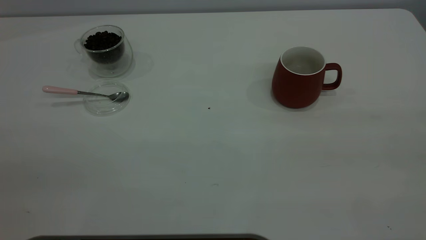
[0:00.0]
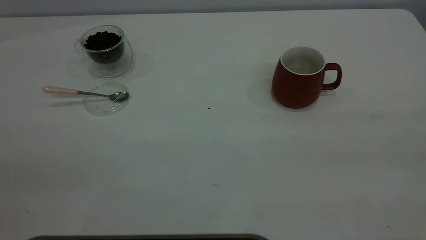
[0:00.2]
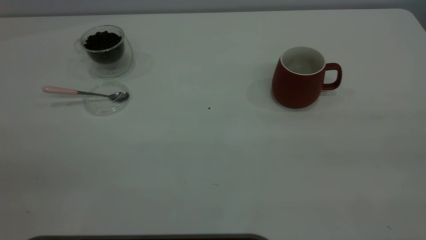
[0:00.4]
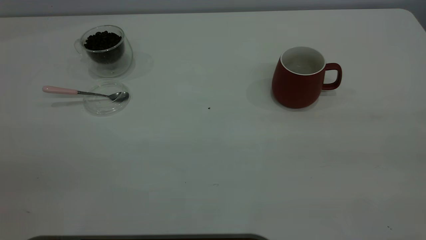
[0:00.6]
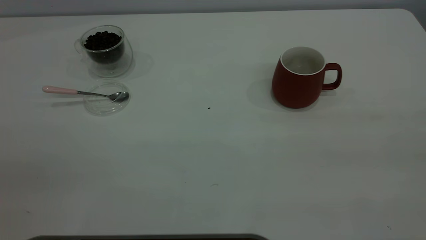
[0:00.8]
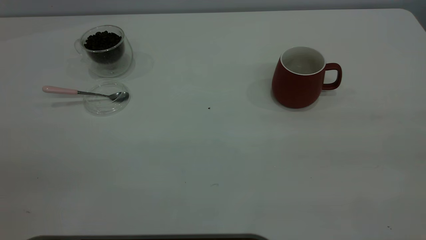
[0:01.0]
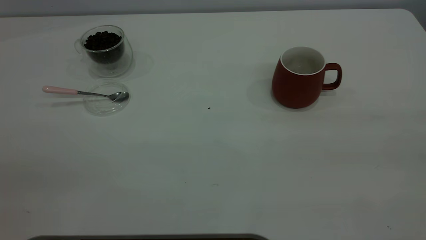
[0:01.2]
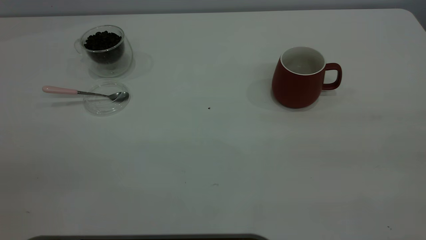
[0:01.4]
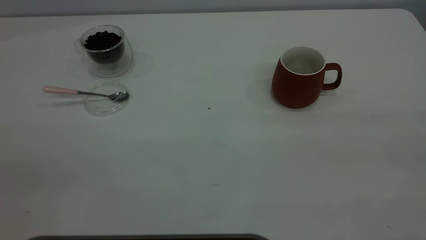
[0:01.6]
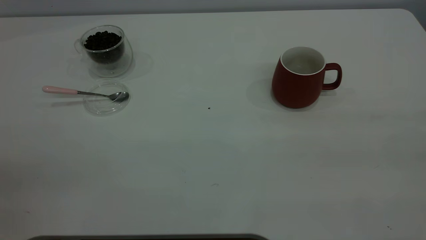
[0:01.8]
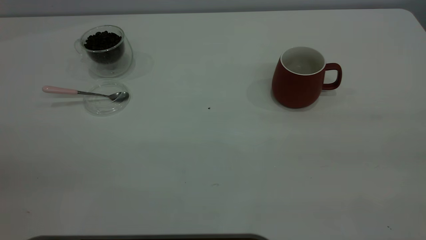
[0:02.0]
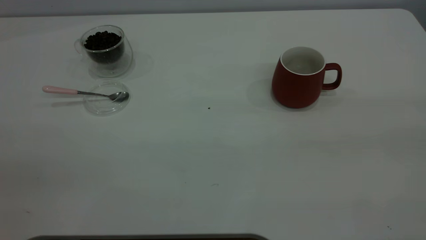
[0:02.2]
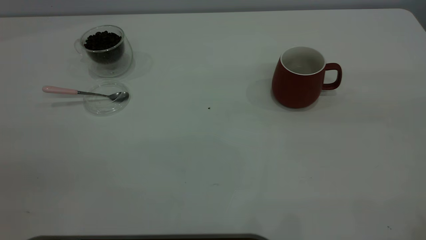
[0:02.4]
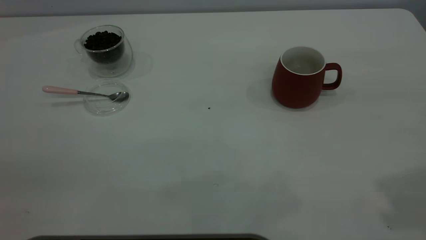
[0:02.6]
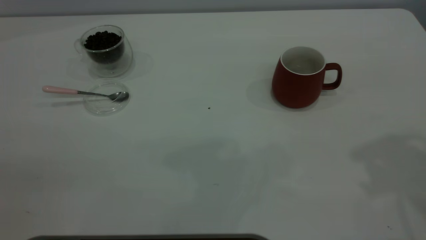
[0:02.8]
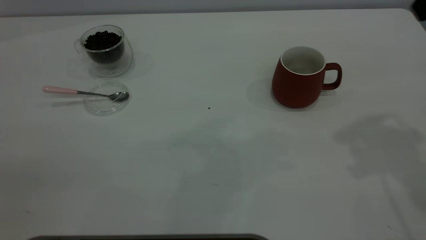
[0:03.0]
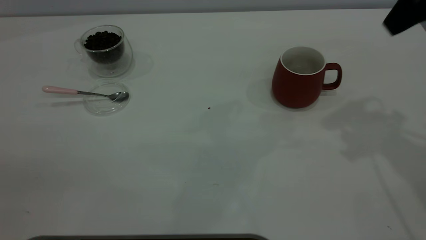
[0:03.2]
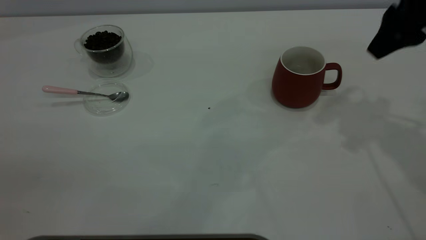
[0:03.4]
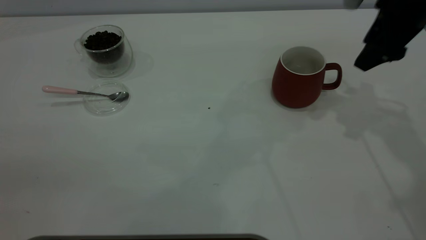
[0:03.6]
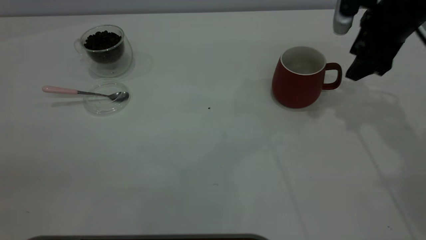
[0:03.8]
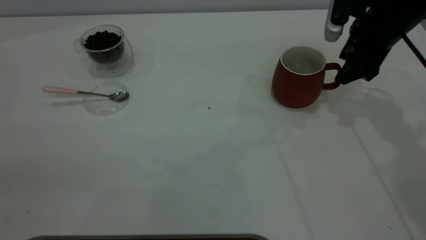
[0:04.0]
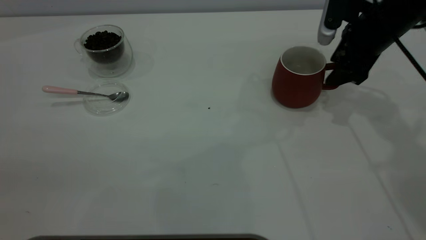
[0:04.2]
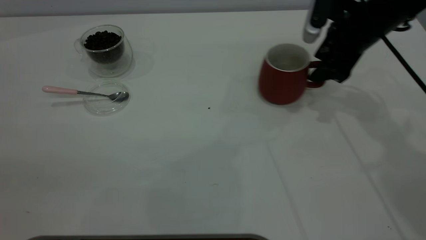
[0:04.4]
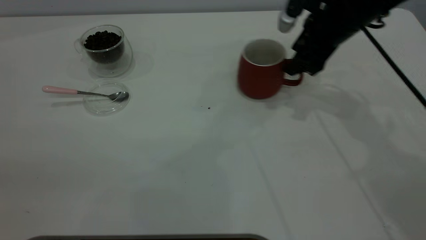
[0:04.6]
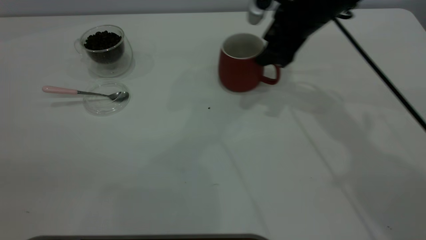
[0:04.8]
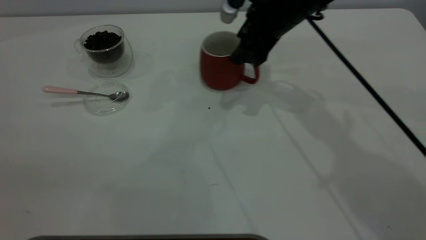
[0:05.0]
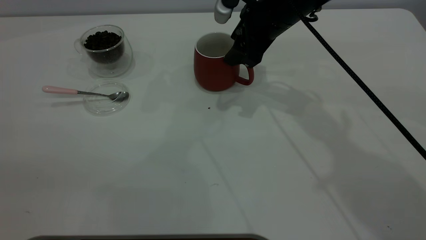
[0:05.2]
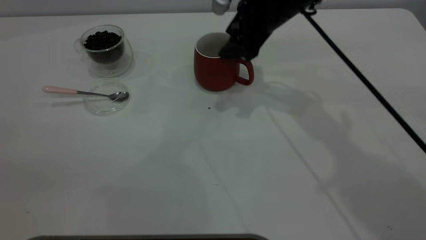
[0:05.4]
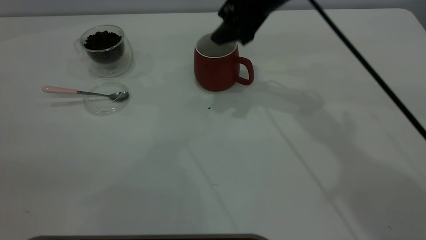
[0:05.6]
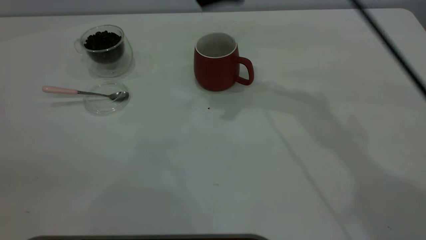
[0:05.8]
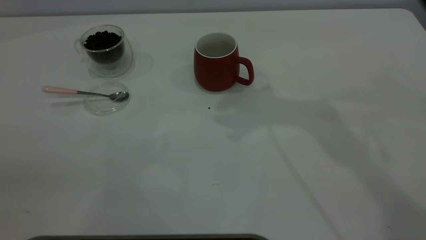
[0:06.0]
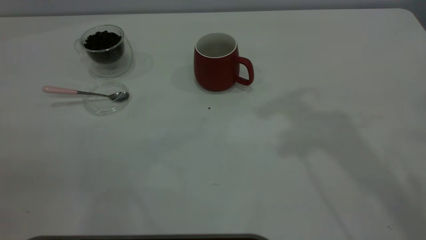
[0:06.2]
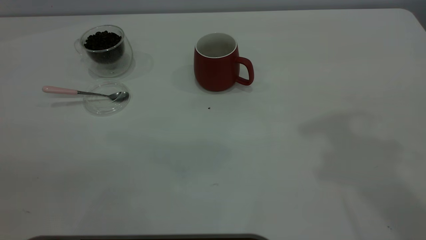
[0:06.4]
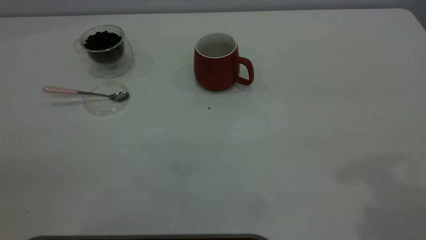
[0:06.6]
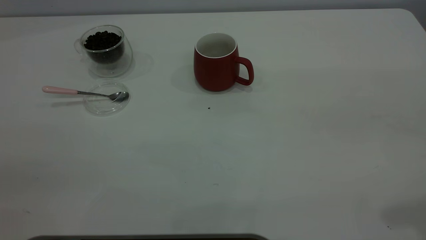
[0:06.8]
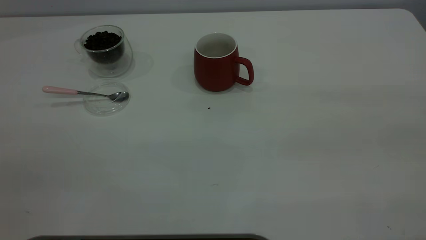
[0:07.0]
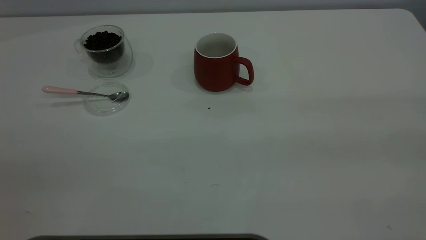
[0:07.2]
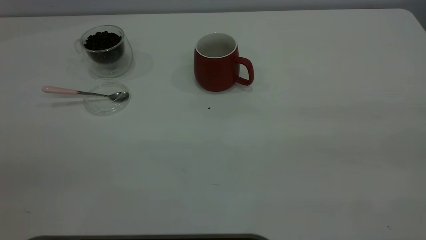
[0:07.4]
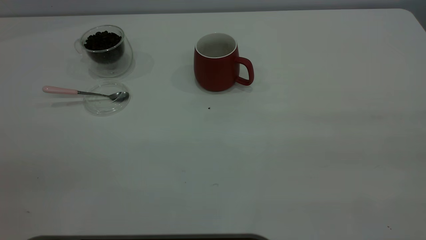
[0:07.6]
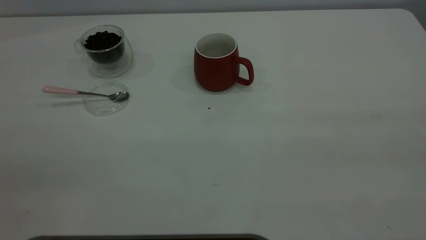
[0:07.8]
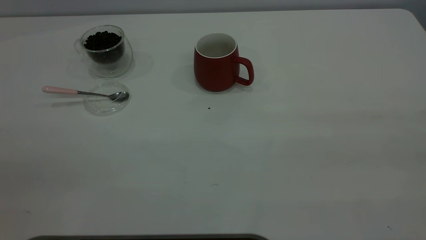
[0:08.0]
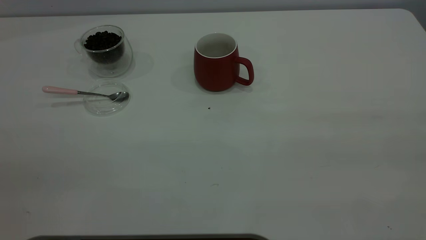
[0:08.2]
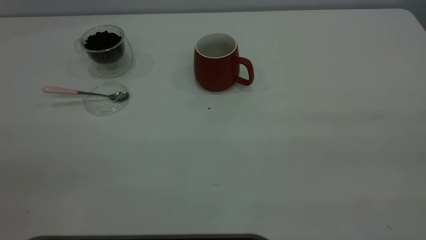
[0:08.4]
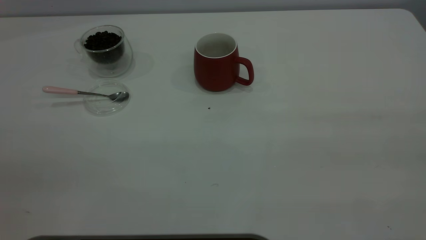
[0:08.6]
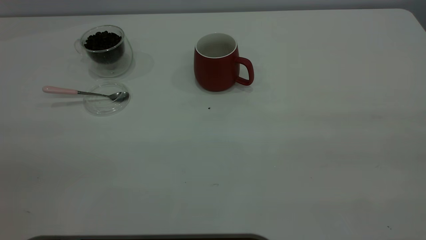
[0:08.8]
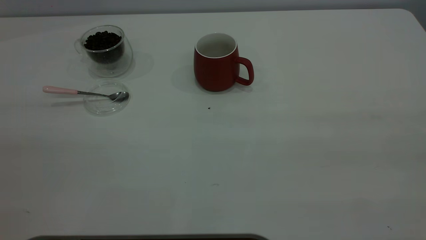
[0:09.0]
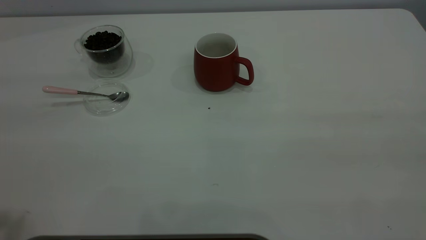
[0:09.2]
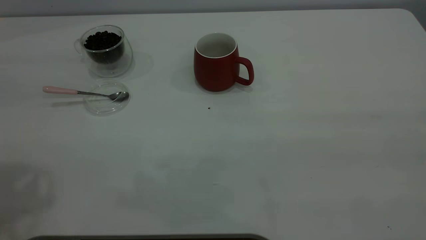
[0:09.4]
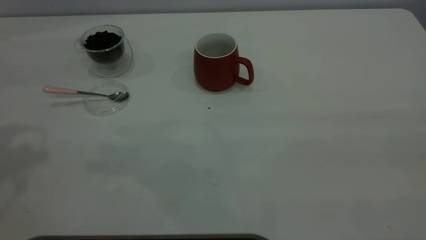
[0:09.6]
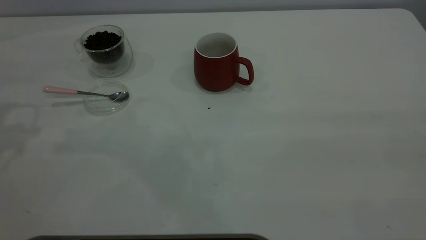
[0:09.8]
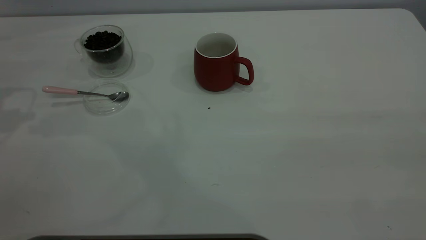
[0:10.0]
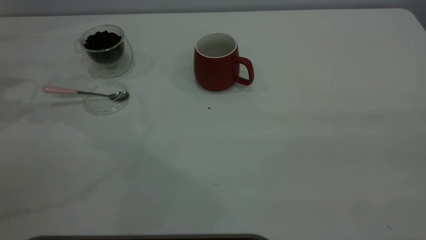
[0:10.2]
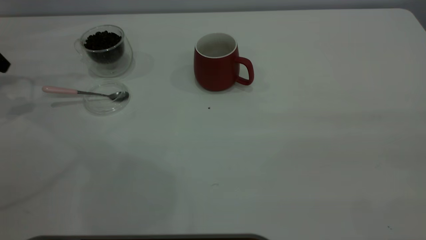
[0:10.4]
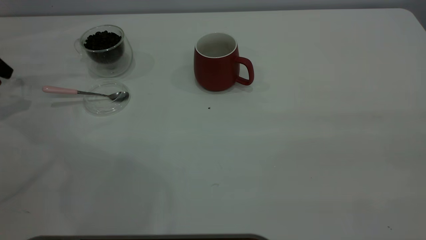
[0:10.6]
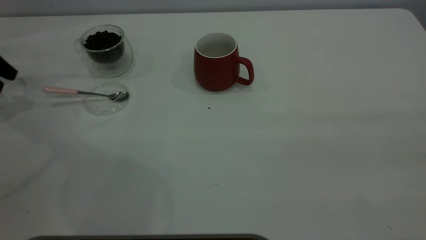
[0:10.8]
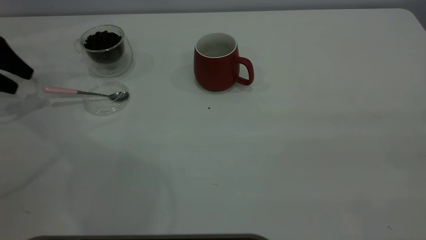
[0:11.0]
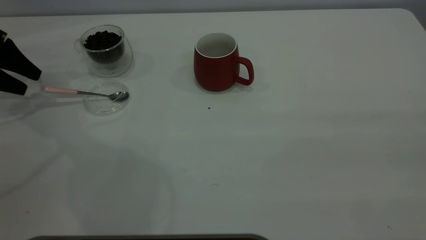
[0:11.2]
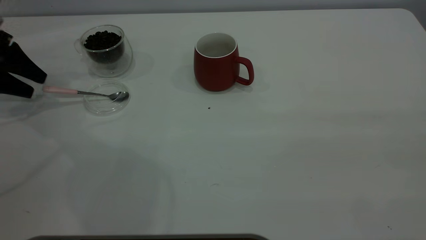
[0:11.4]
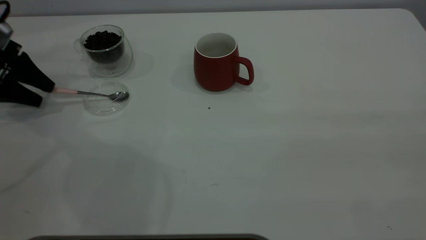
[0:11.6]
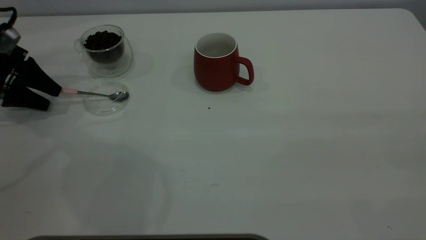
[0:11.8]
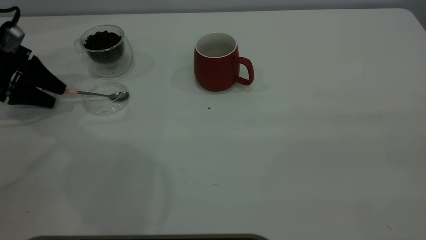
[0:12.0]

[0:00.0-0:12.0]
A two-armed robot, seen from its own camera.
Task of the whole recording: the right gripper place the red cup in the center of the table, the left gripper take the pink spoon from the cup lid and scoop out the coffee beans from the coffee cup and put them into the red cup, the left gripper put the spoon back into the cup lid.
Step, 0:00.0 to 0:05.6: Move the cup to the center of view.
0:00.0 to 0:01.6: Both grippers stay about where they are.
0:03.0 to 0:04.4: The right gripper is displaced downward and forward by roughly 25 cm.
0:04.4 to 0:06.0: The right gripper moves upward and to the left, approximately 25 cm.
0:10.4 to 0:12.0: The left gripper moves downward, approximately 10 cm.

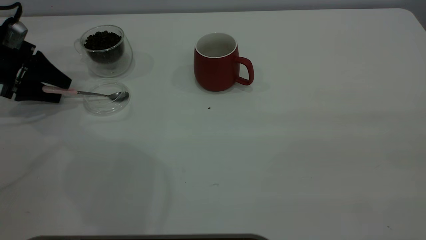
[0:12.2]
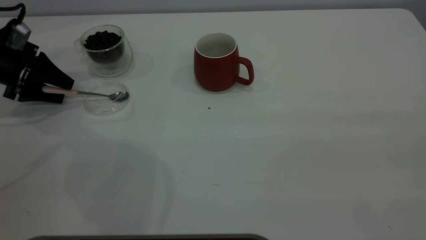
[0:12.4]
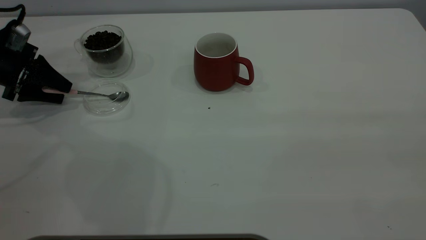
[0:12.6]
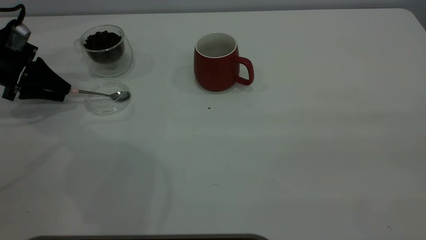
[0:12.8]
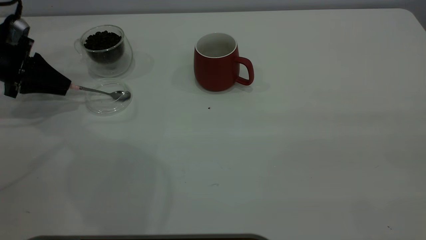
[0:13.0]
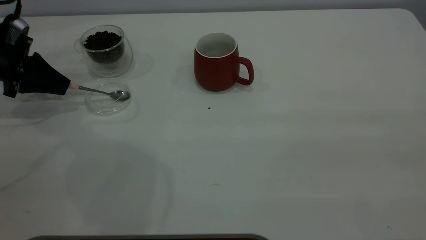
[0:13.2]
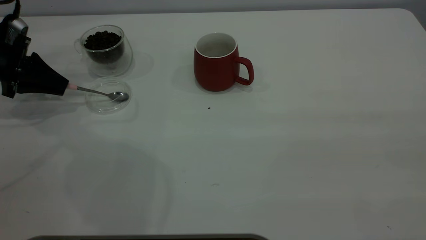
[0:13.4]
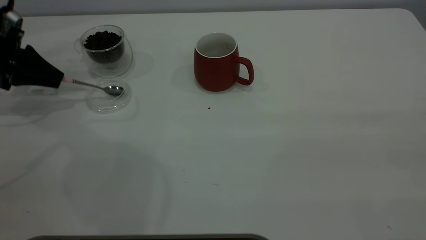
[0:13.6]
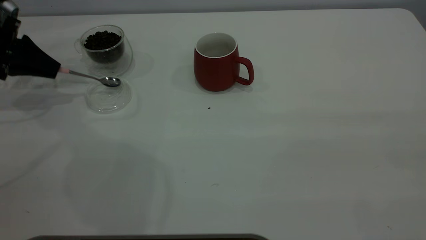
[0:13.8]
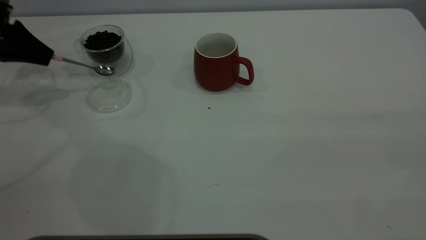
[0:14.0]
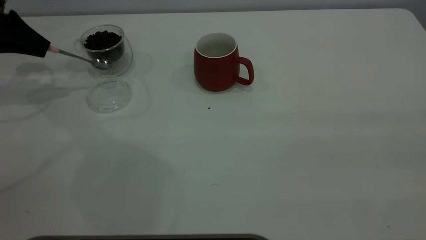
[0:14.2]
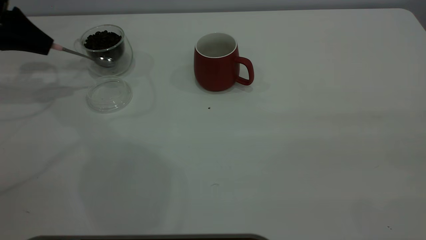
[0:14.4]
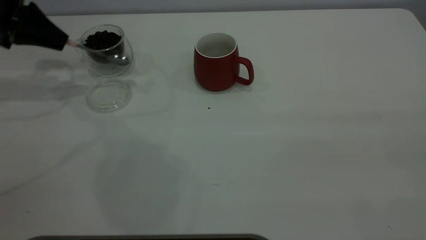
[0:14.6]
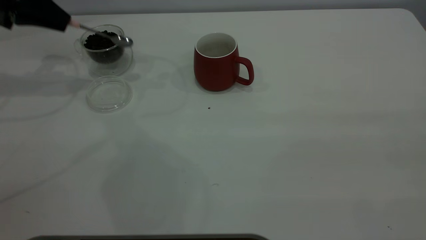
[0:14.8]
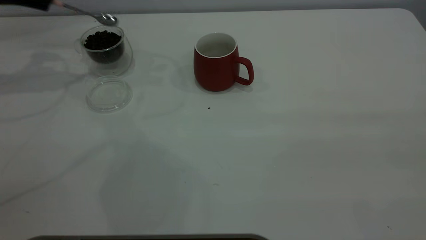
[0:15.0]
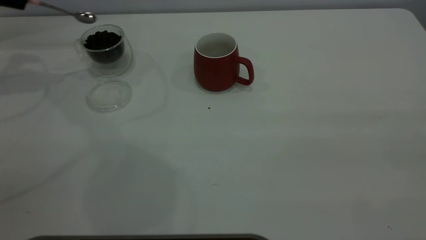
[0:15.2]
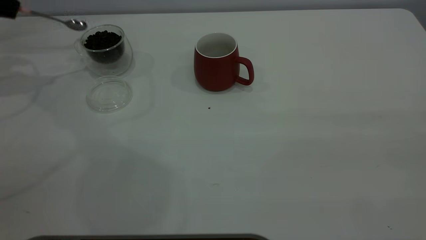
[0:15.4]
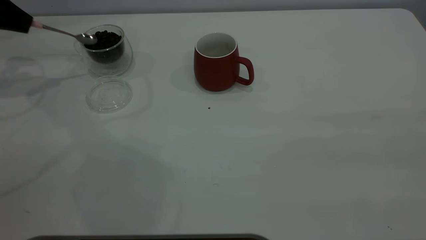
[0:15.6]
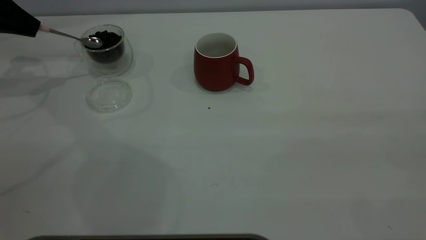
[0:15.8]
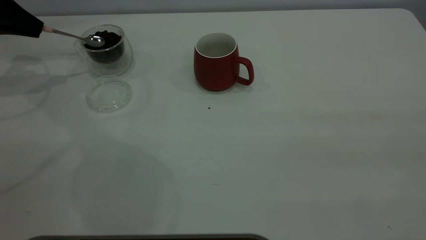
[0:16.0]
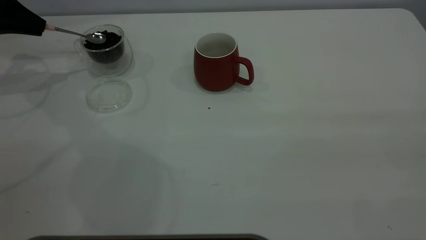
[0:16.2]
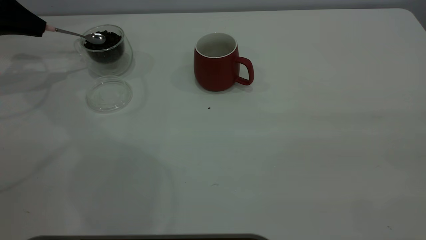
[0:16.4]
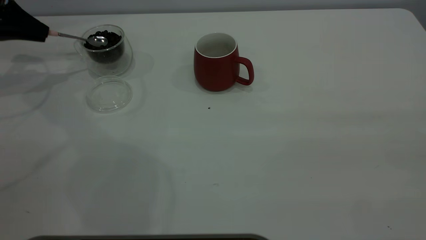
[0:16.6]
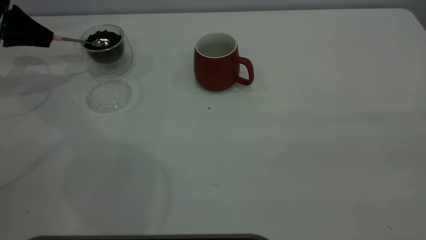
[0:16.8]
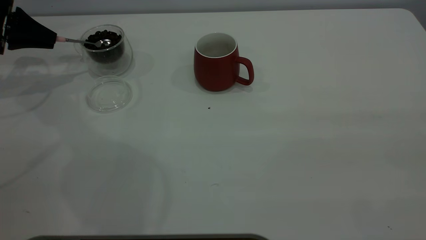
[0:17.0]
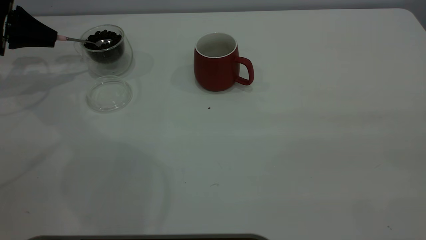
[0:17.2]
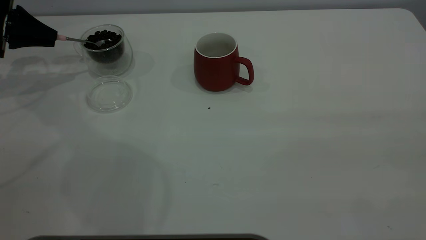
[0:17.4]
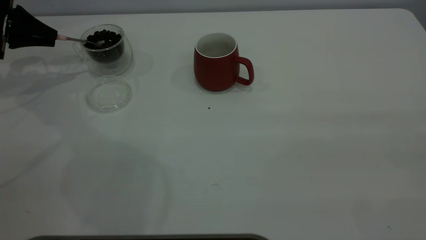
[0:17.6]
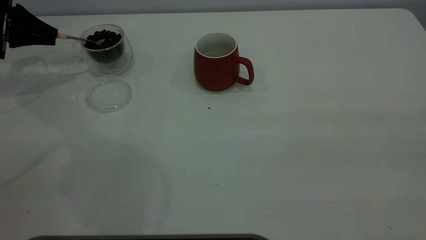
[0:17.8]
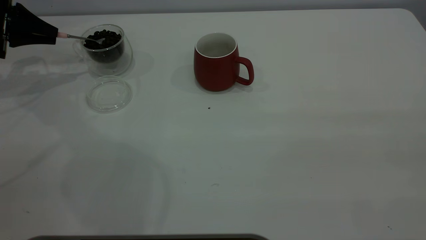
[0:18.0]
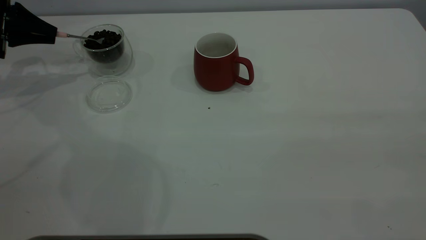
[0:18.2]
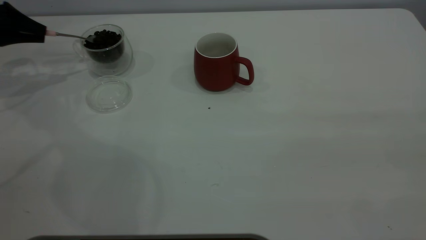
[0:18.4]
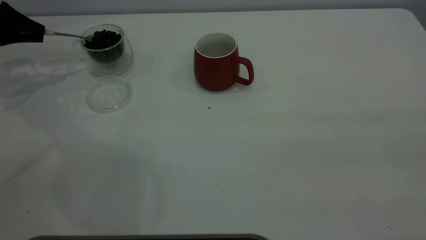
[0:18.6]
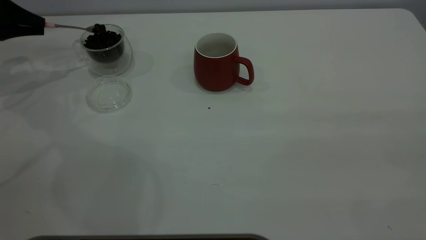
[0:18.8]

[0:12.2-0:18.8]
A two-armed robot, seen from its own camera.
Task of the whole recording: the right gripper place the red cup in the center of the table, the left gripper take the pink spoon from the cup lid and scoop out the coffee beans from the coffee cup and put them into the red cup, the left gripper put the spoon back into the cup lid.
Step, 0:12.2 to 0:14.4: Pick up the spoon.
0:12.2 to 0:13.8: The left gripper closes.
0:13.8 to 0:15.4: The left gripper is displaced upward by about 10 cm.
0:15.4 to 0:17.2: The left gripper is displaced downward by some 5 cm.
0:17.2 to 0:18.8: There are only small adjustments of the grippers.
